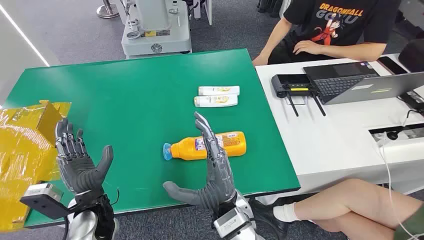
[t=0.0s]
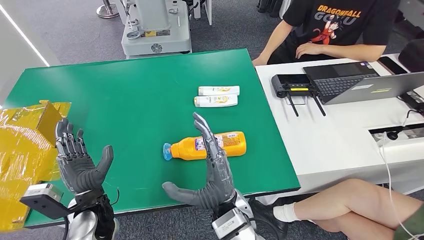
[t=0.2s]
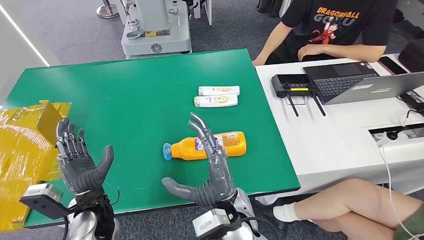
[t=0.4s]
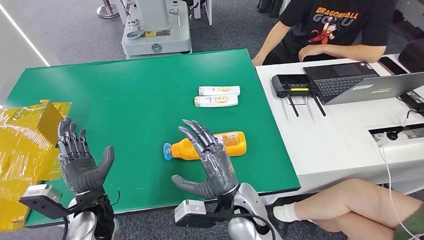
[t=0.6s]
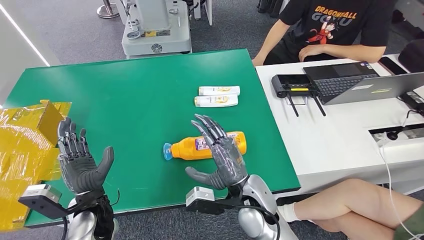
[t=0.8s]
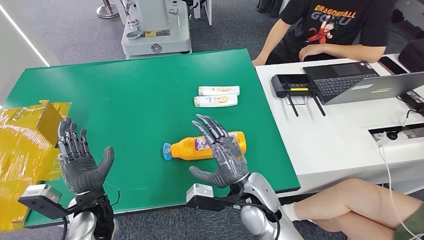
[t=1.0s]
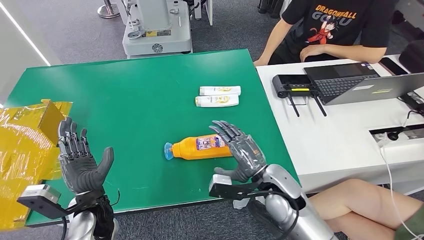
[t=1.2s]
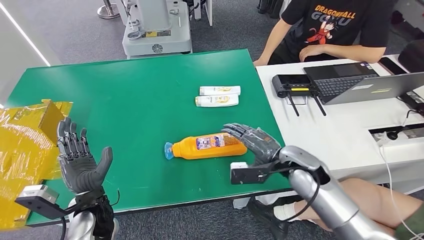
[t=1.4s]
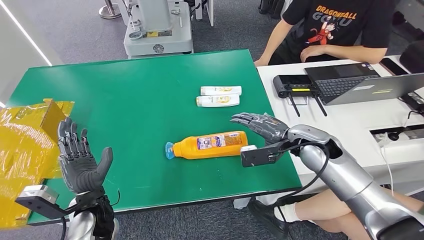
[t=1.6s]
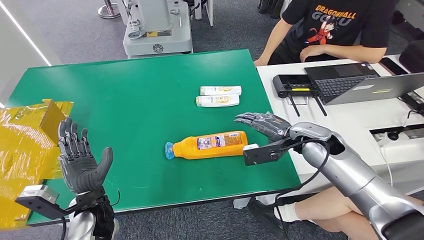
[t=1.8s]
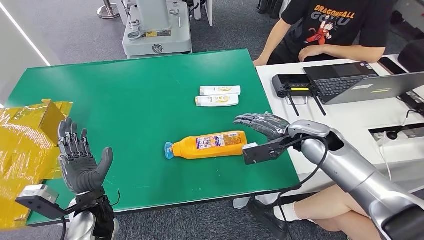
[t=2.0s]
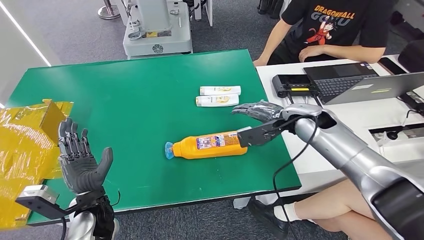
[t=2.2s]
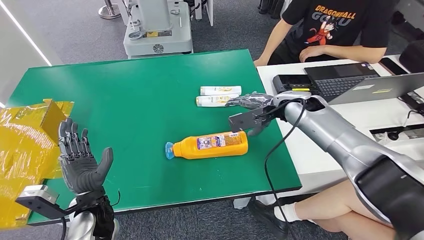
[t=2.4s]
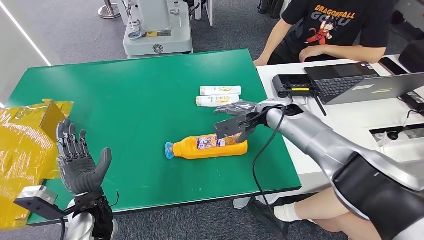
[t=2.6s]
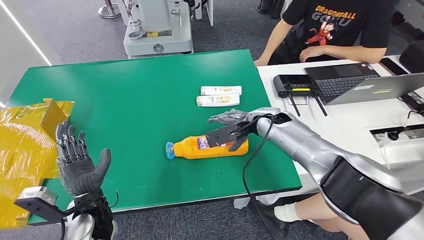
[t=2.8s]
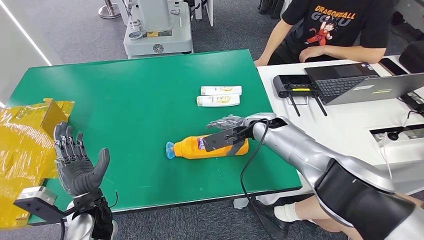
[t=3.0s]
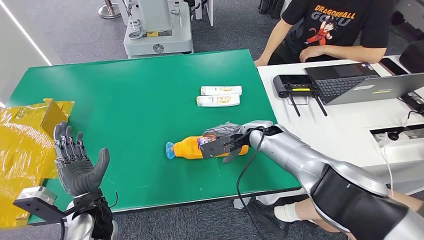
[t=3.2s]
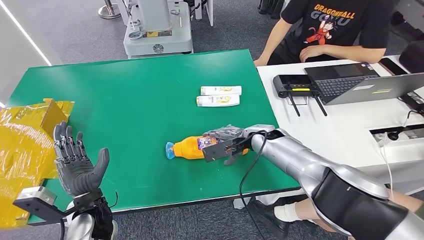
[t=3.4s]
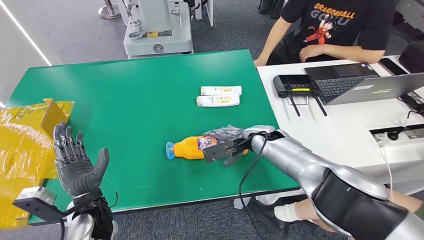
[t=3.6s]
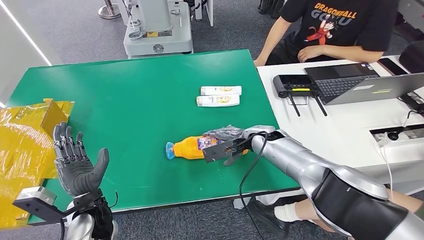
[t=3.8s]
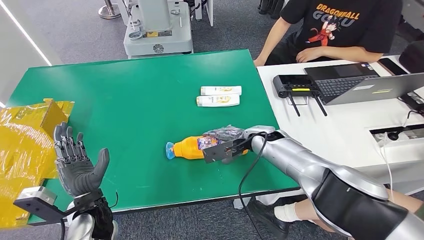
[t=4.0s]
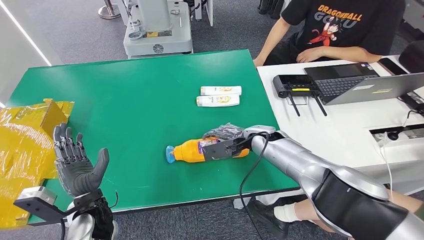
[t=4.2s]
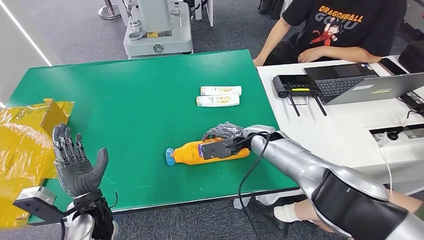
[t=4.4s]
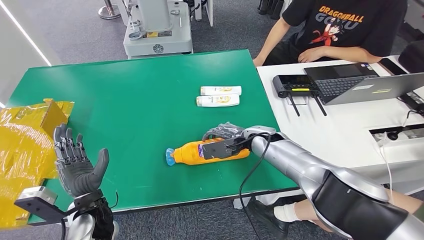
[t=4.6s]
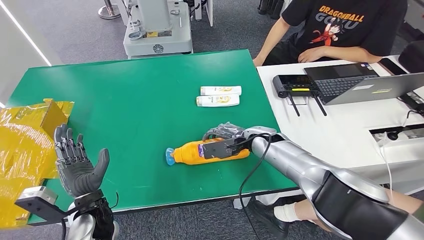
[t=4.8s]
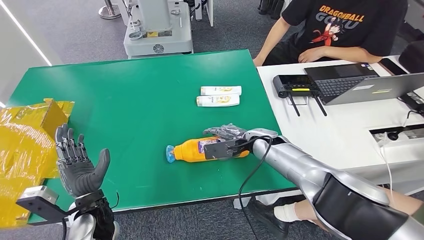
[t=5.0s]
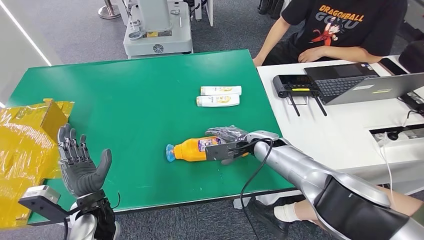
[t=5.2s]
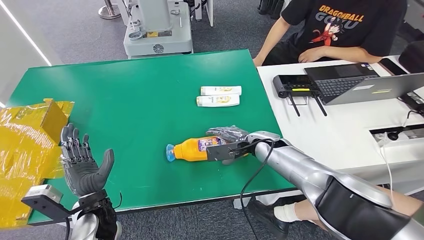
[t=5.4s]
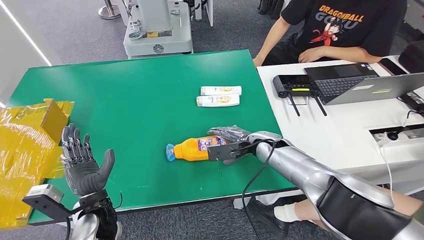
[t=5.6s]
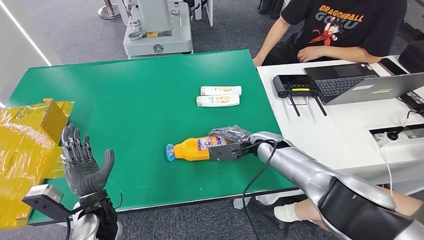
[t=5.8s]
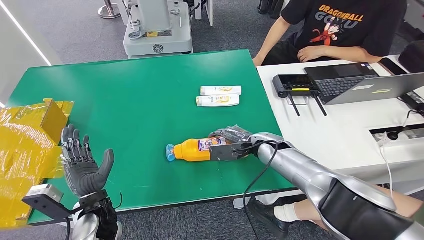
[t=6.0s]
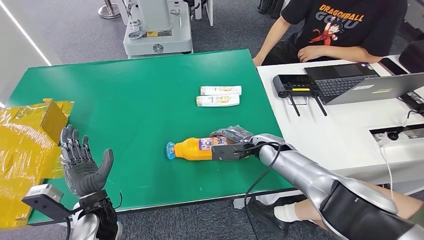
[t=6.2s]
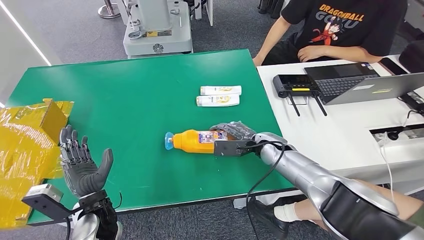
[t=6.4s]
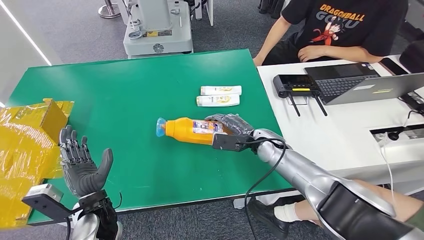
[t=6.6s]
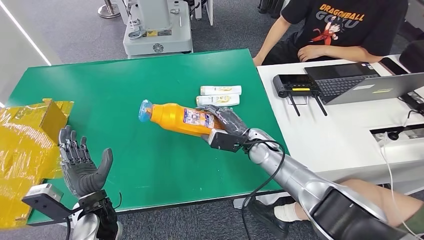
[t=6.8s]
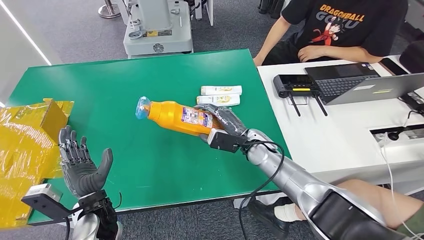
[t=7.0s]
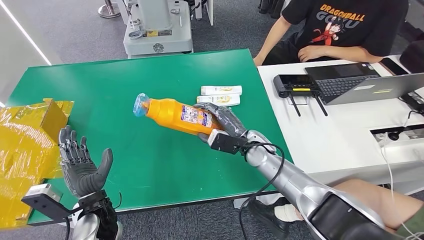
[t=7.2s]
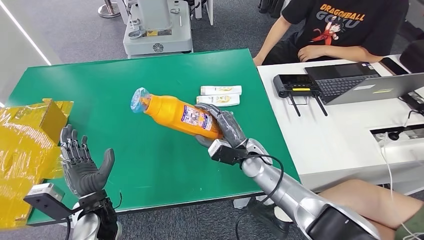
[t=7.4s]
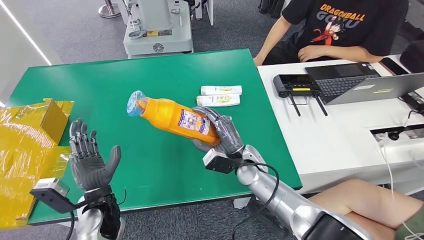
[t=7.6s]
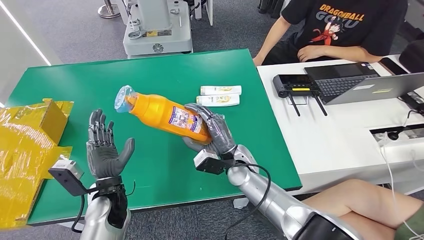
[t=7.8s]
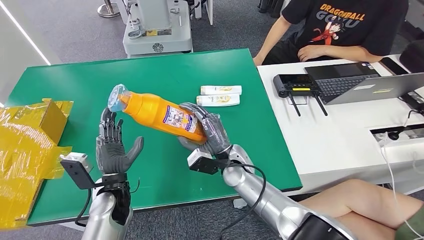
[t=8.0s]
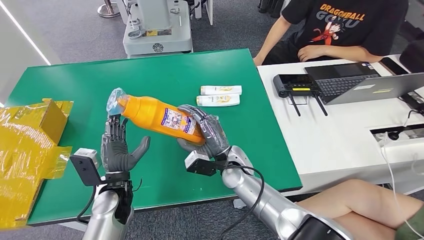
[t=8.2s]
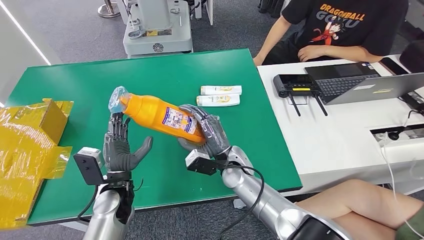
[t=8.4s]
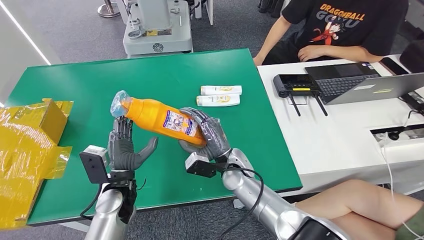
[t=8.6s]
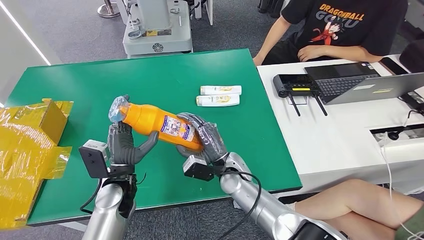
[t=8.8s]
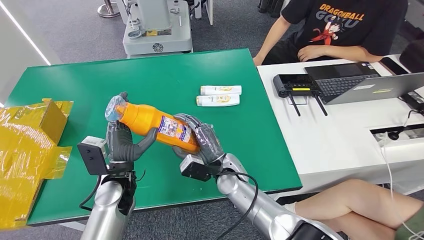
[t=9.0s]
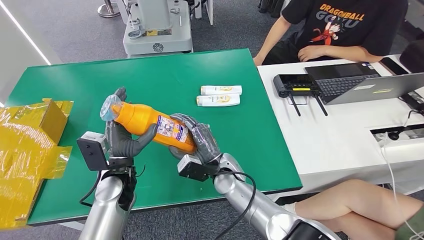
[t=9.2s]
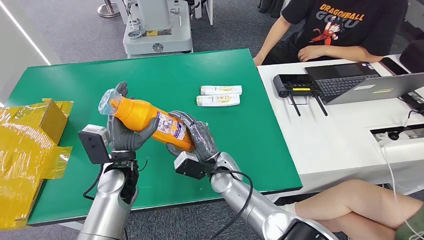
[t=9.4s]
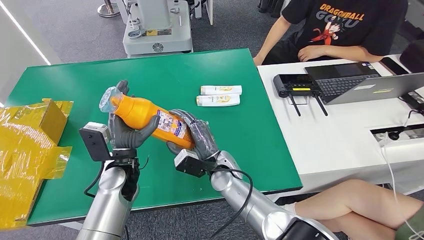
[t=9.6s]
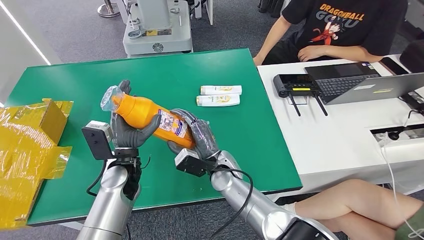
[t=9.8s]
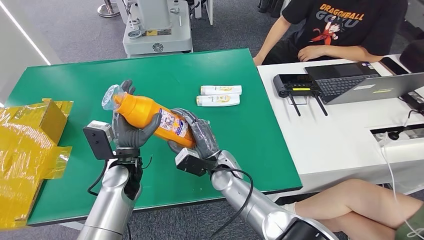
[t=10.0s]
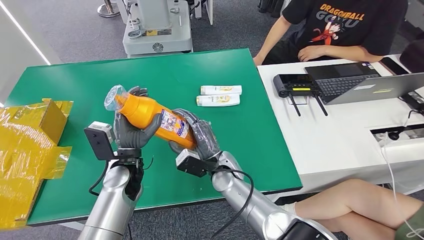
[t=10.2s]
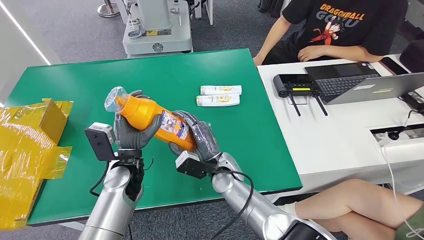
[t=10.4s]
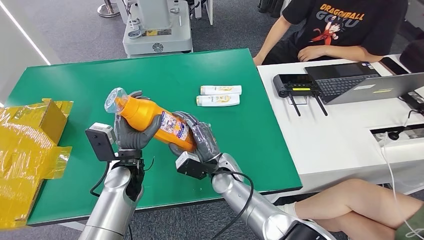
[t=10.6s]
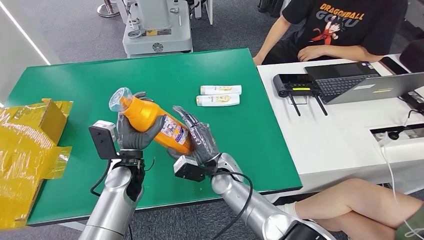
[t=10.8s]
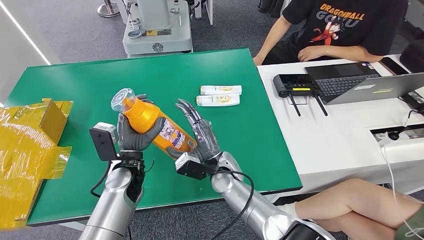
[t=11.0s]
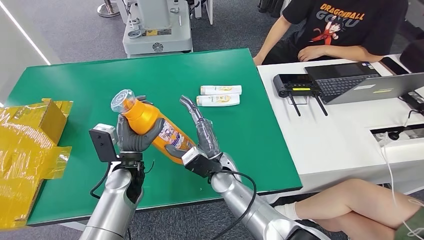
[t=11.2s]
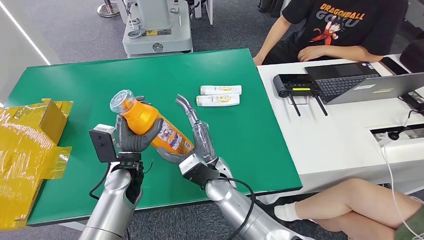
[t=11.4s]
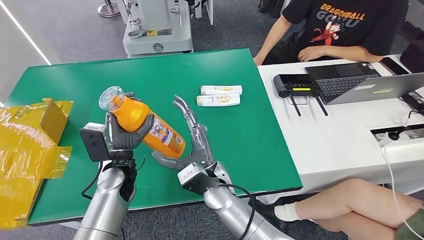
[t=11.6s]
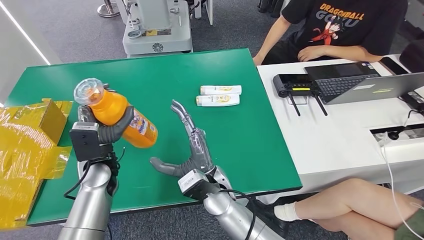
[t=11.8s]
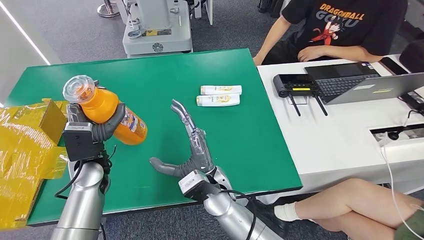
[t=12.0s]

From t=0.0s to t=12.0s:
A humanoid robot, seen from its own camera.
Step, from t=0.0s to t=7.8s: Pick up the bottle from the table.
From t=1.6s to t=3.0s: The right hand travels forward and to the left by roughly 10 cm.
From t=3.0s to t=4.4s: The hands move only a little.
From t=4.4s to t=6.0s: The hands make only small movements.
From t=6.0s to t=7.6s: The right hand travels to the left by some 10 cm.
From t=7.6s to t=9.0s: The left hand ends up approximately 5 cm from where it was. The right hand moves to the left, roughly 5 cm.
From t=9.0s to t=10.4s: The hands move only a little.
From t=10.4s to t=12.0s: The left hand heads to the left, covering roughly 5 cm; the right hand ends up roughly 10 cm from where it was.

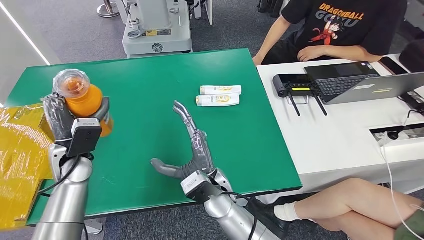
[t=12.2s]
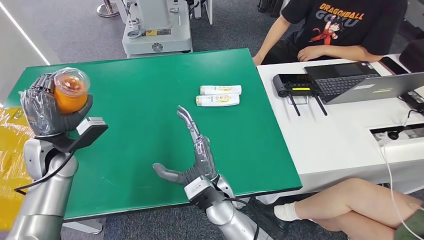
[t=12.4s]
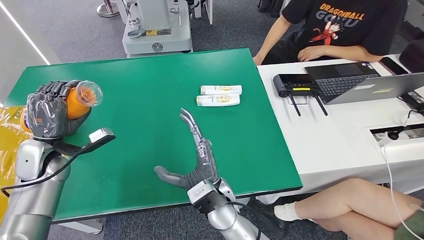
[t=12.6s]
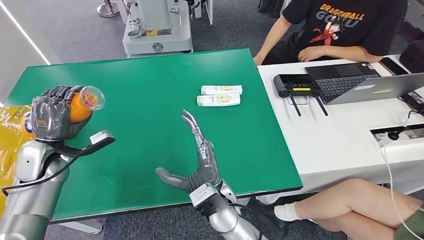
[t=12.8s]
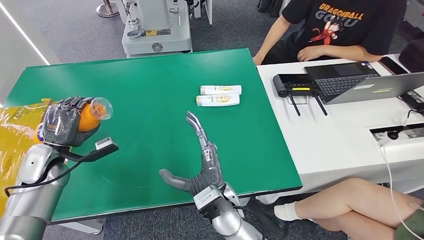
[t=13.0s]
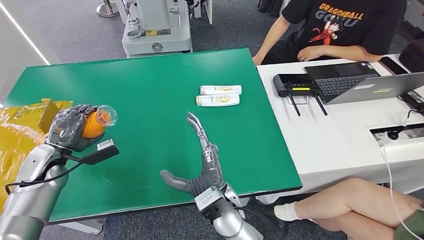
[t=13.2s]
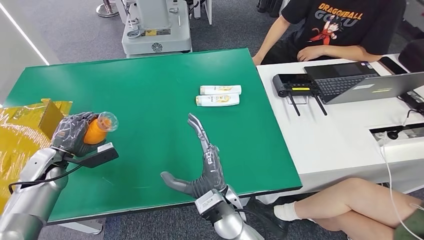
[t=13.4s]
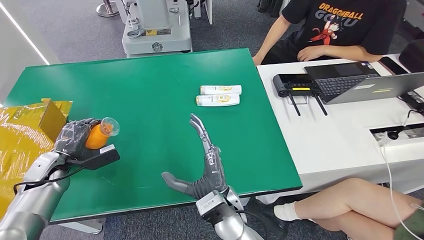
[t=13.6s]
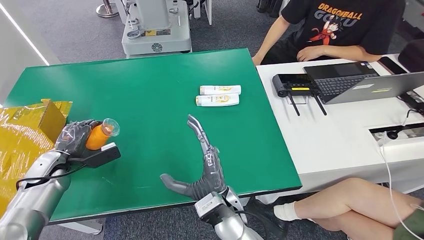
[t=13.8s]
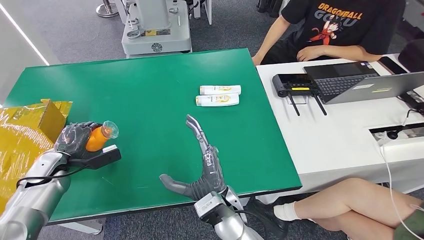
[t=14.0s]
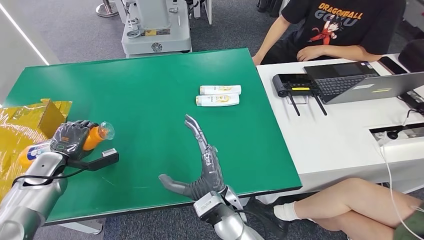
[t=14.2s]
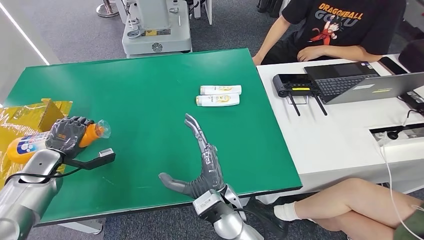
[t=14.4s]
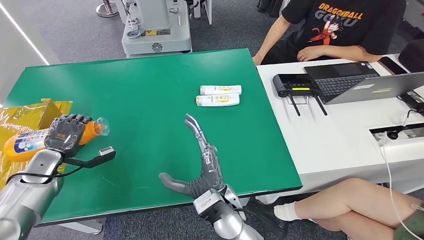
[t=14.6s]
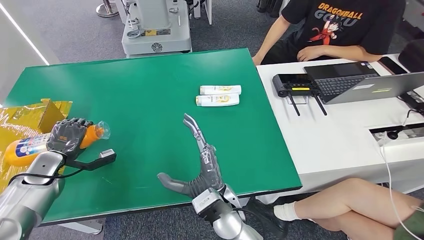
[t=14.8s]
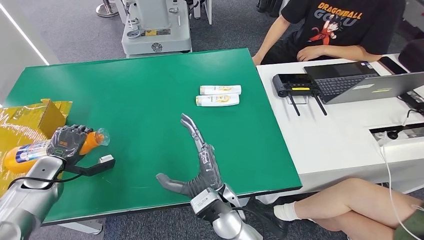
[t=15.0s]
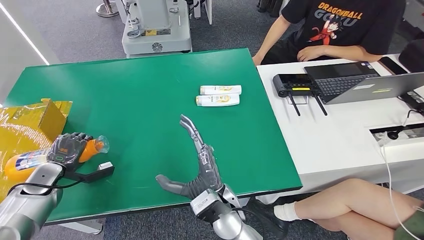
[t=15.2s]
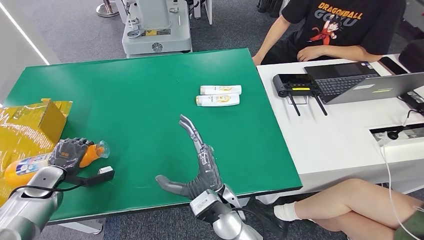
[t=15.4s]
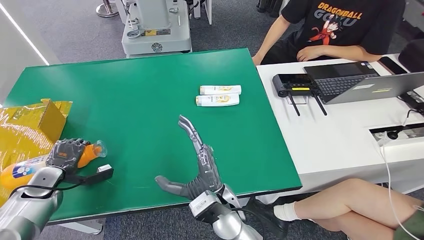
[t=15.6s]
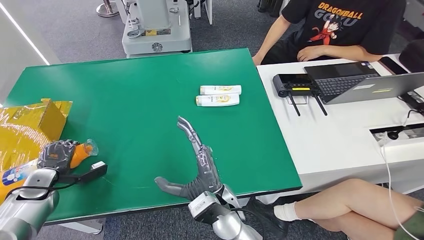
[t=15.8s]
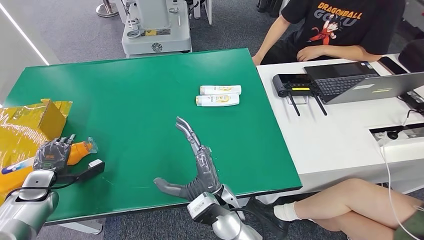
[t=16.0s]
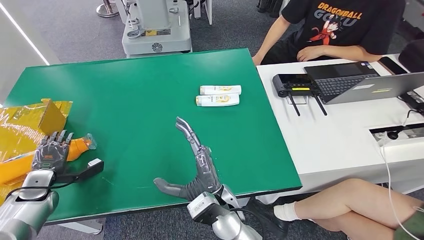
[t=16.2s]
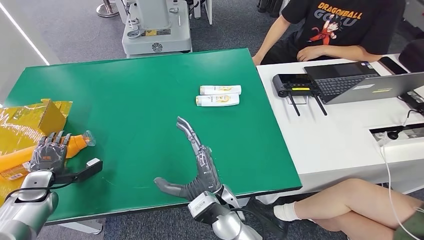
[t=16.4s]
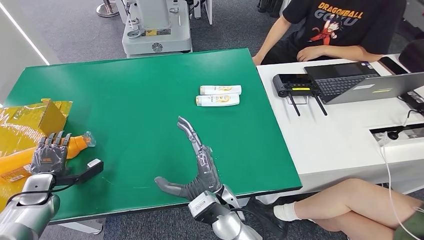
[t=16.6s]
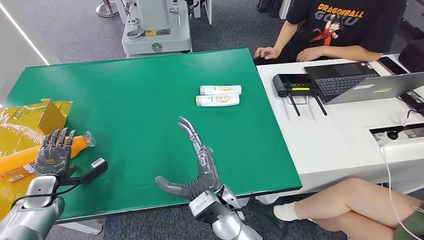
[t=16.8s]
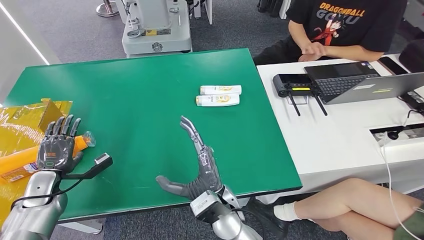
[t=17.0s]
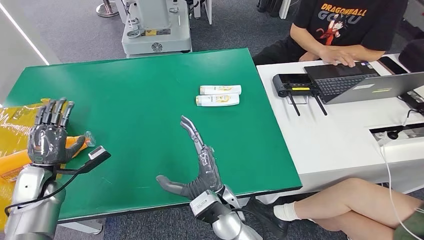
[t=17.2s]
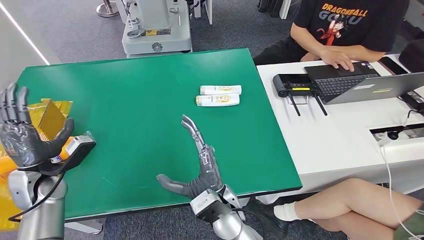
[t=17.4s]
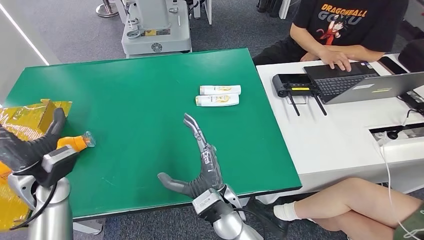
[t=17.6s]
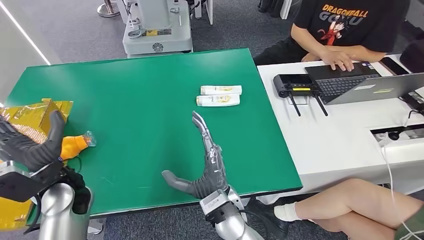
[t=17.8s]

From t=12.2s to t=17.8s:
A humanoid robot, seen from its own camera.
Step, from t=12.2s to t=17.6s: Turn the bottle to the front side.
From t=12.2s to t=13.6s: The left hand moves to the left and downward, about 15 cm.
From t=16.4s to t=17.8s: The left hand travels to the right and upward by roughly 25 cm.
